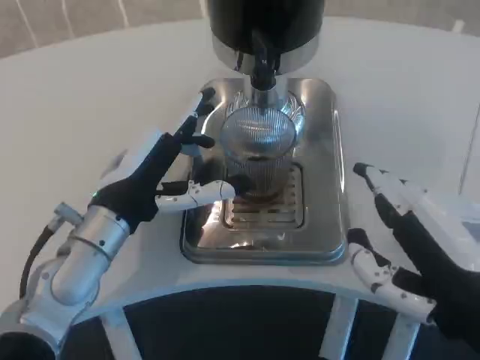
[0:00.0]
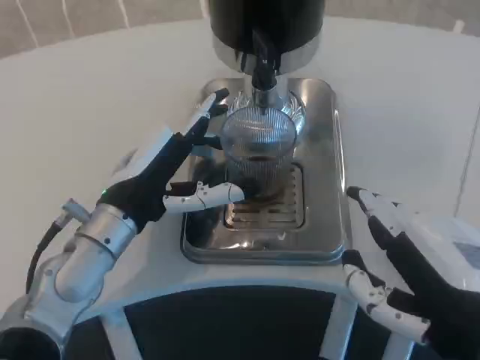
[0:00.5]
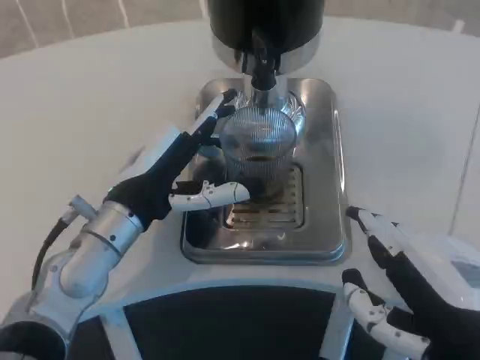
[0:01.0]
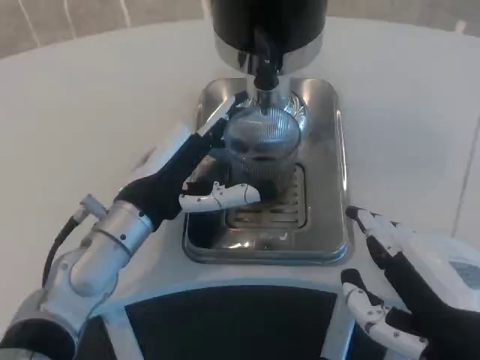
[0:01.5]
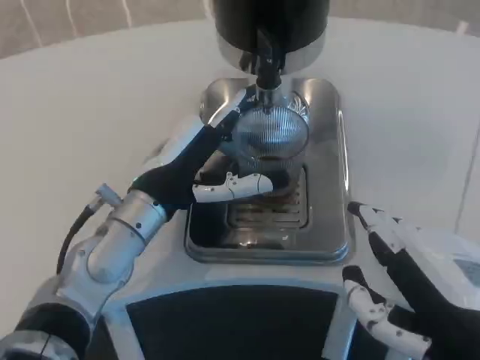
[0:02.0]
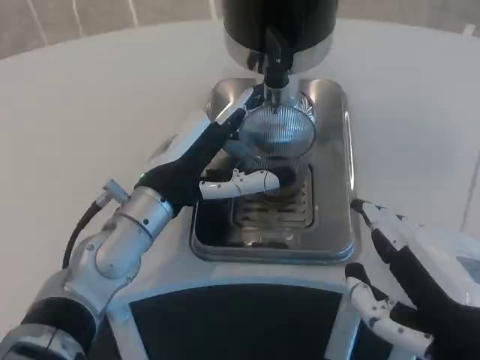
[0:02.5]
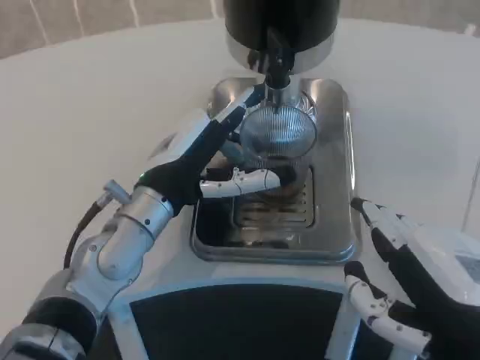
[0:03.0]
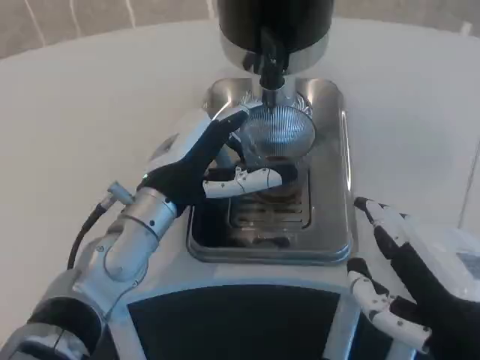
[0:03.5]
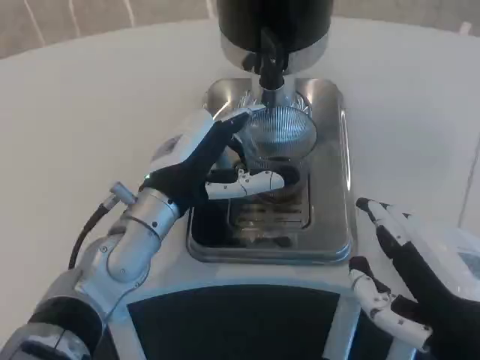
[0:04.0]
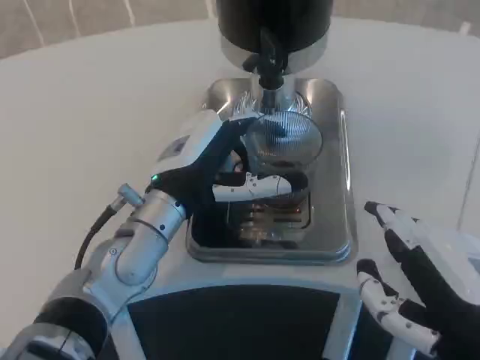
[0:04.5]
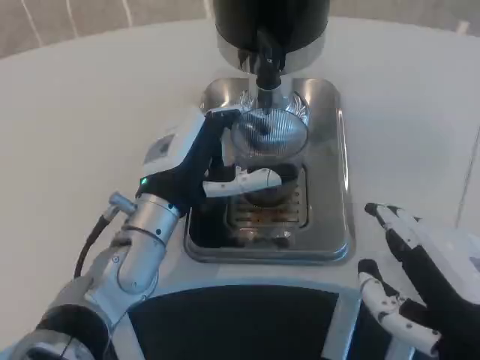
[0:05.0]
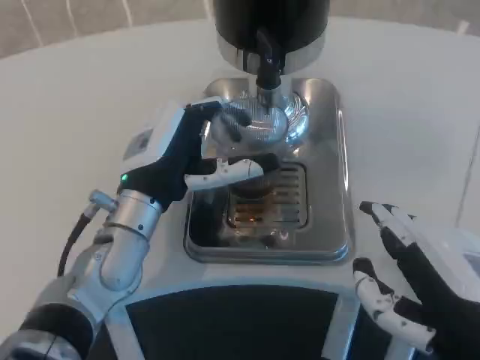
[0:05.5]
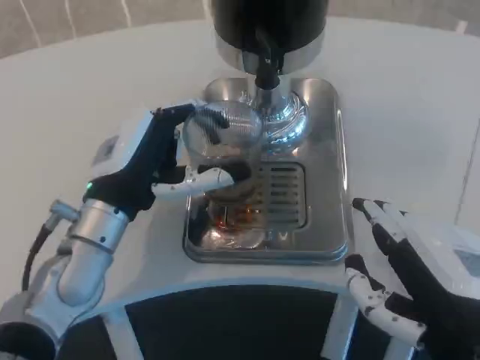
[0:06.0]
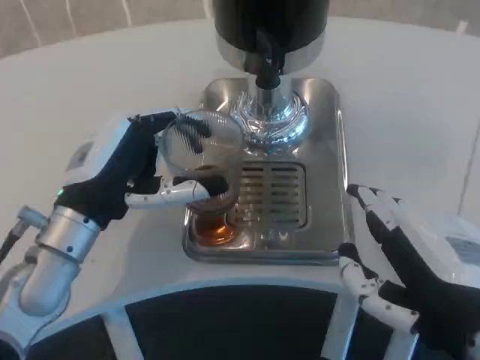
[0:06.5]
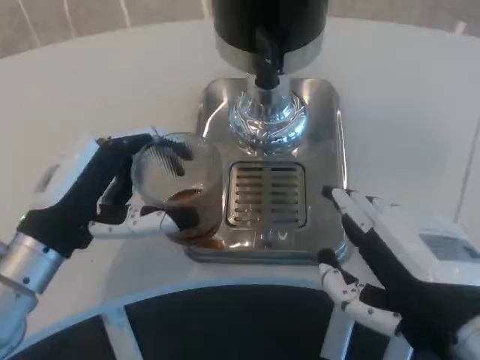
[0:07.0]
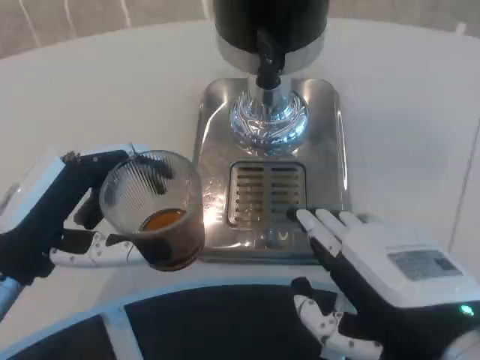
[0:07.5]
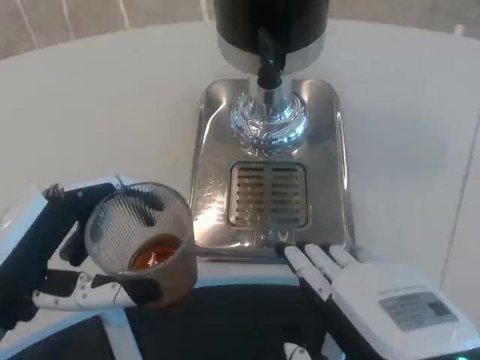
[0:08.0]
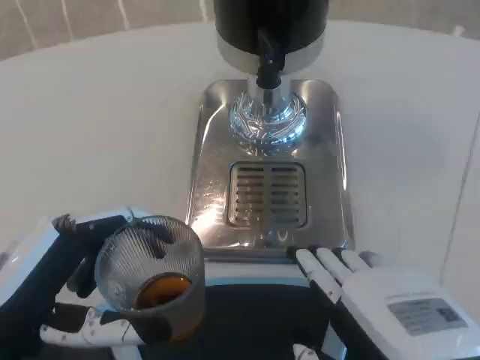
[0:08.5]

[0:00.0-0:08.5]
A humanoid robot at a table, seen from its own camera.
Task of the whole recording: Grasp the cup under the faucet to collect the drink, then remove the cup.
0:02.0 to 0:04.0: The hands make only small movements.
0:04.0 to 0:06.5: The left hand is displaced to the left by some 5 cm.
0:06.5 to 0:08.5: The left hand moves backward, about 10 cm.

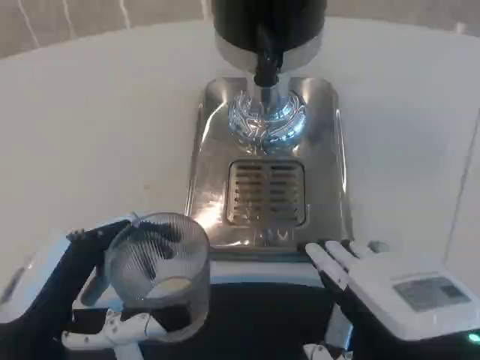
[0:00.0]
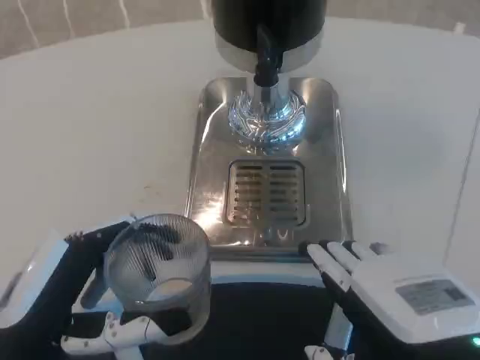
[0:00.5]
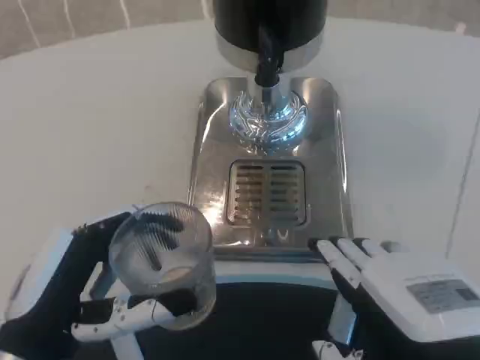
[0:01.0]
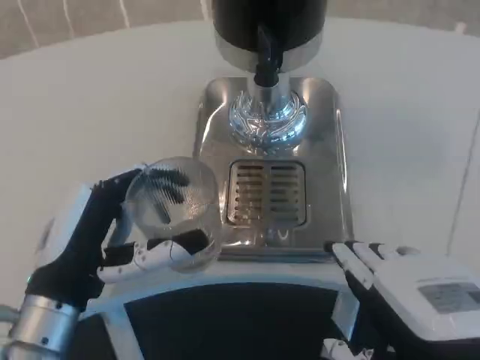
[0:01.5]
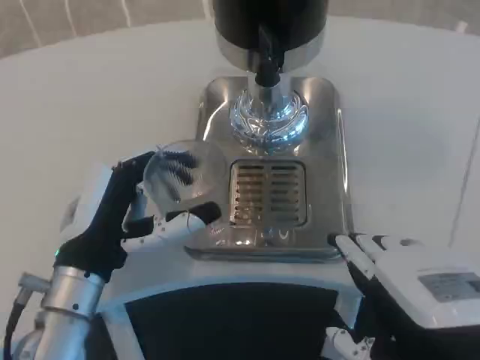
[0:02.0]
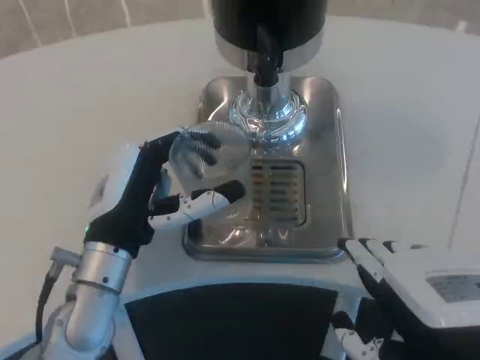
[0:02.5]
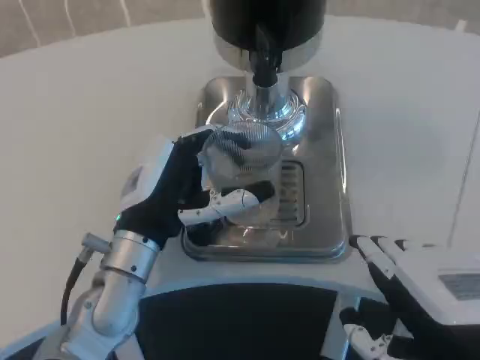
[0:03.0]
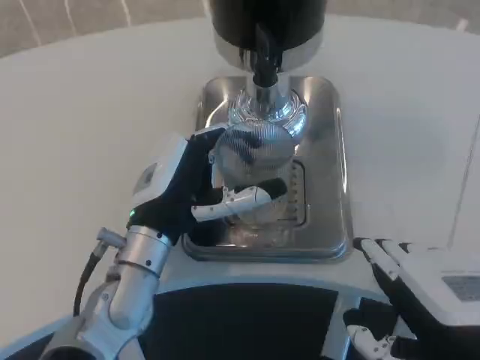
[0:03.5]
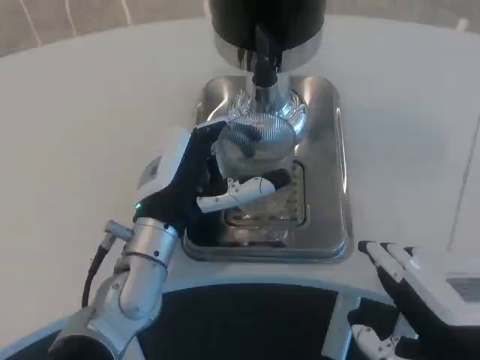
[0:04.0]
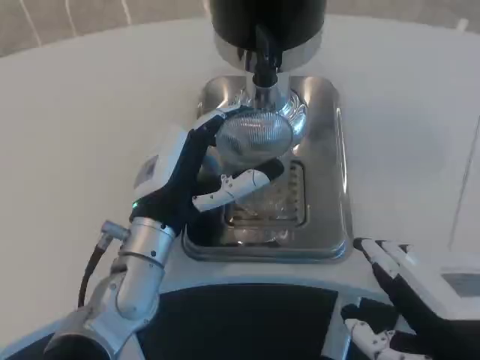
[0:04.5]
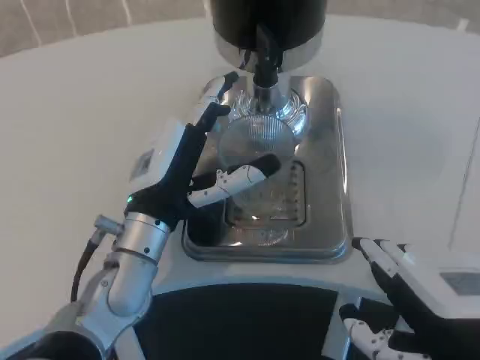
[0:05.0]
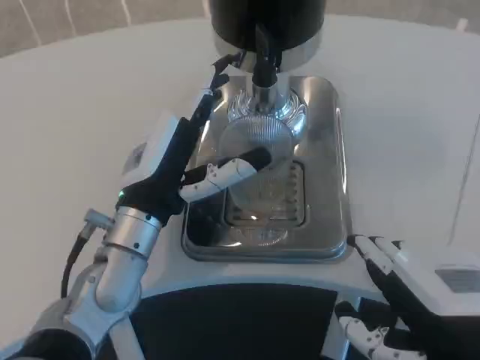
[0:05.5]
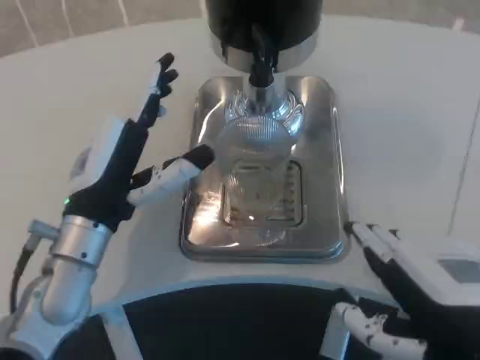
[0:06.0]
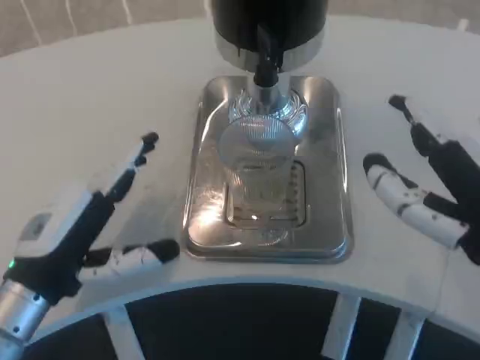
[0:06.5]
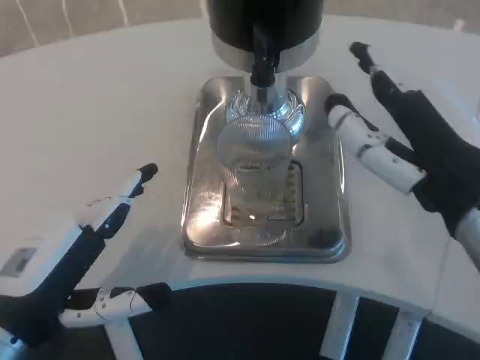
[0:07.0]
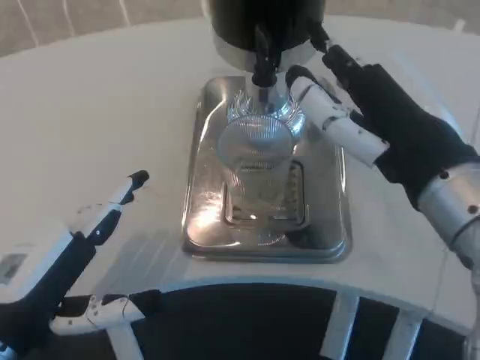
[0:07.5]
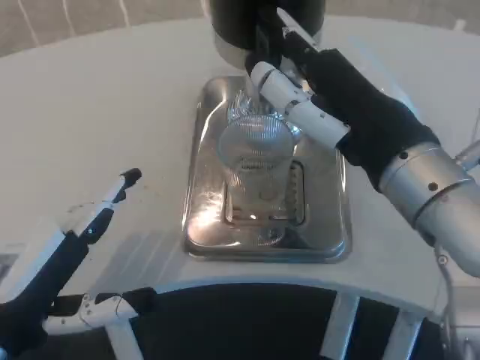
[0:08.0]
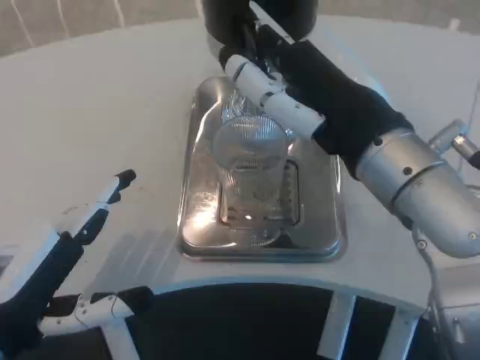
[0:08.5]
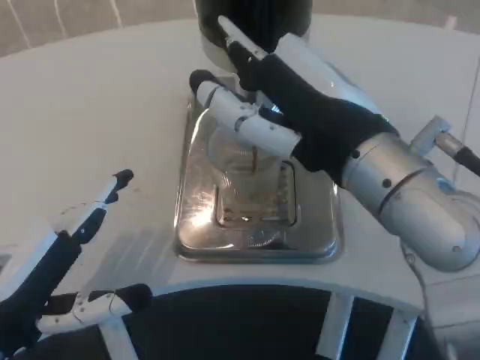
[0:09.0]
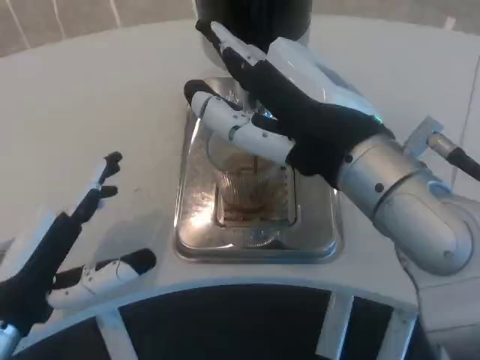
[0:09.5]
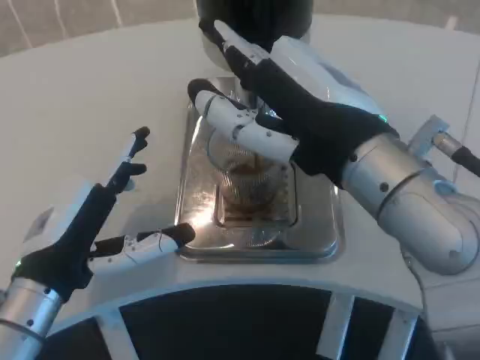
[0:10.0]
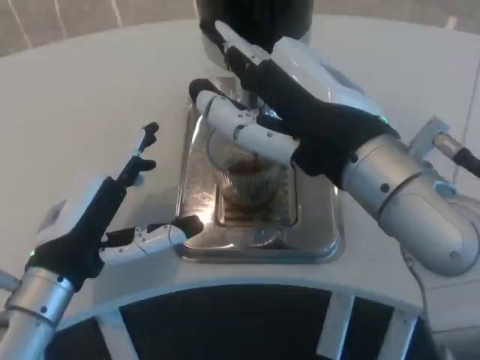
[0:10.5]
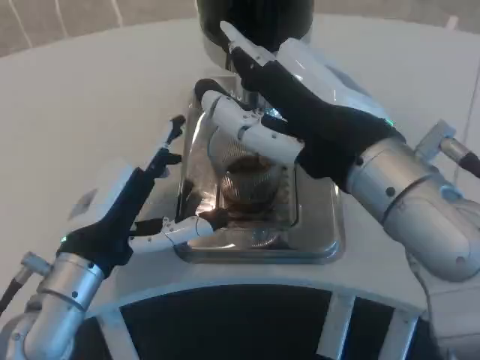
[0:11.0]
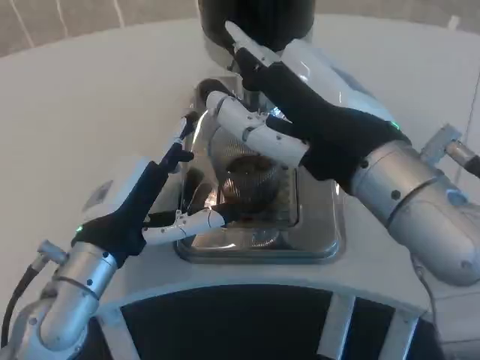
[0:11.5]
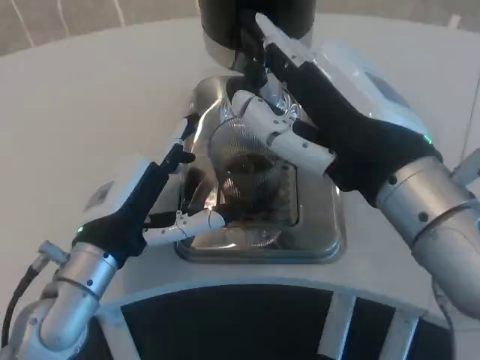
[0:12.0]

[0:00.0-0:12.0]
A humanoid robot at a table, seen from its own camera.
Task of the whole recording: Grasp the cup under the faucet to collect the drink, then remove the cup.
0:00.0 to 0:02.0: The left hand heads forward, covering some 10 cm.
0:02.0 to 0:04.0: The left hand shifts about 10 cm to the right and forward.
0:04.0 to 0:06.0: The left hand is displaced to the left by about 5 cm.
0:06.0 to 0:08.0: The right hand shifts about 10 cm forward and upward; the left hand heads backward and to the left, covering approximately 15 cm.
0:08.0 to 0:10.0: The left hand ends up roughly 5 cm from where it was.
0:10.0 to 0:12.0: The left hand shifts by some 5 cm.

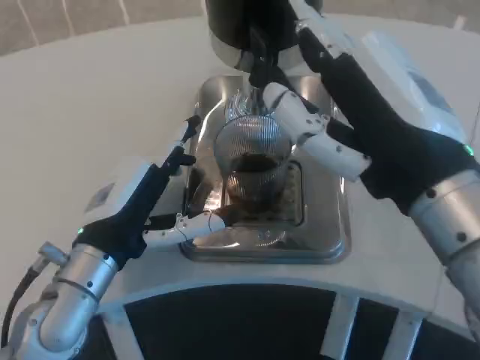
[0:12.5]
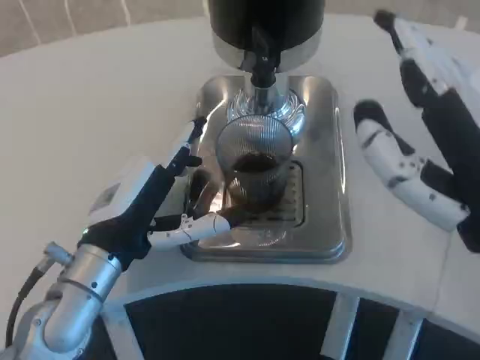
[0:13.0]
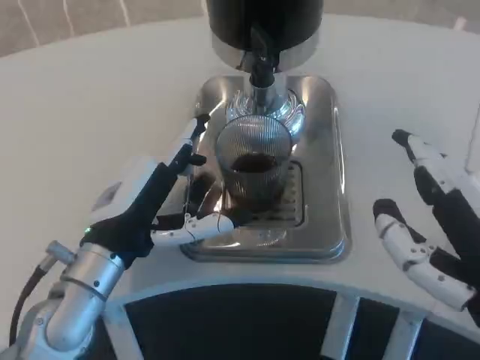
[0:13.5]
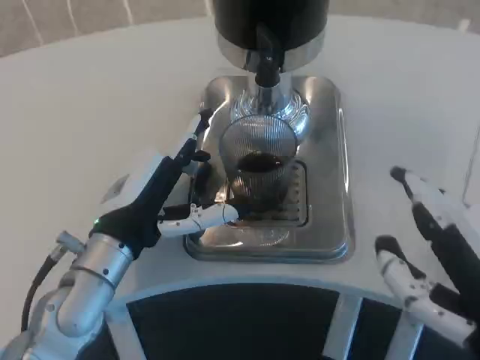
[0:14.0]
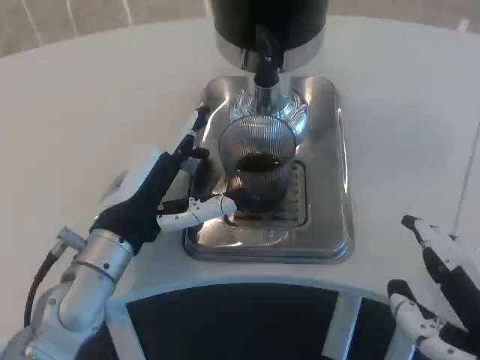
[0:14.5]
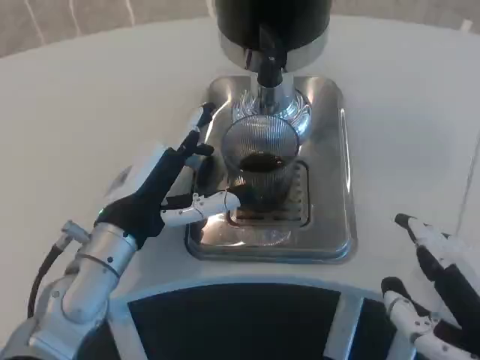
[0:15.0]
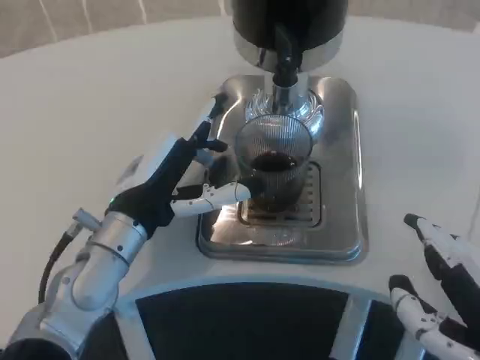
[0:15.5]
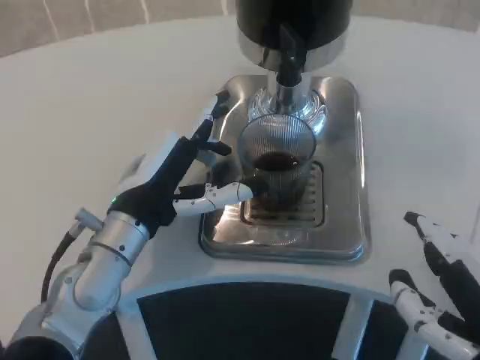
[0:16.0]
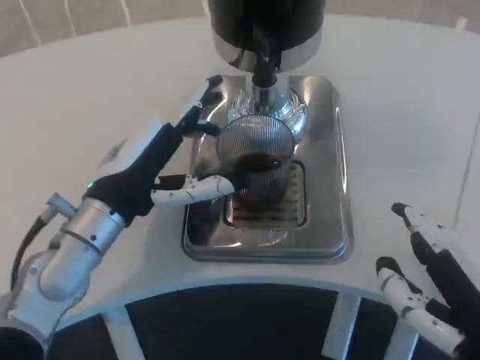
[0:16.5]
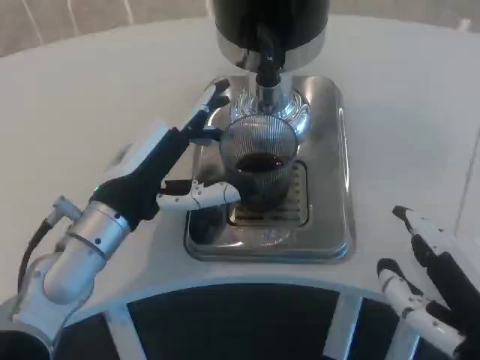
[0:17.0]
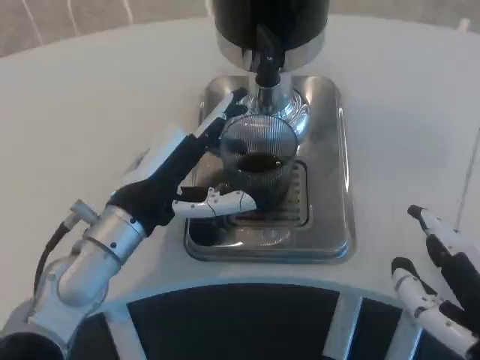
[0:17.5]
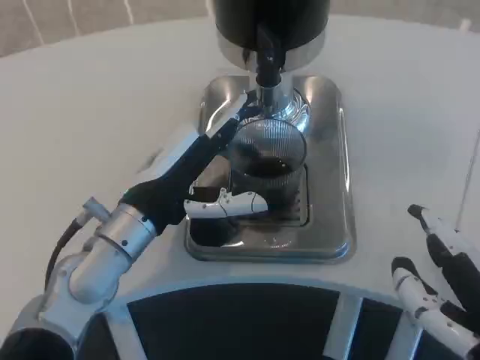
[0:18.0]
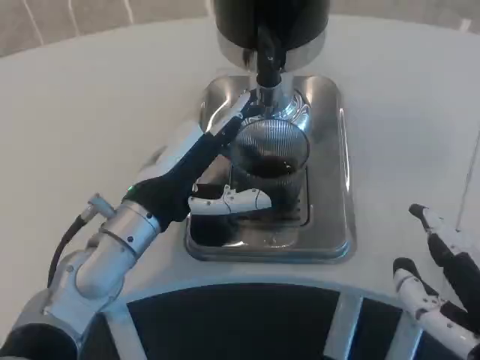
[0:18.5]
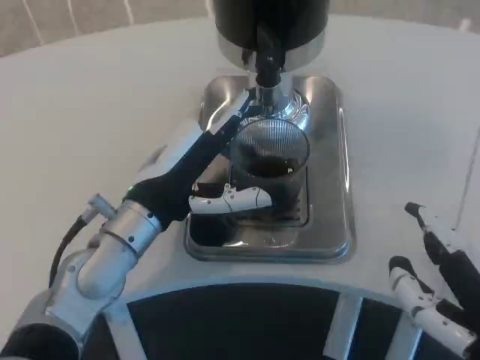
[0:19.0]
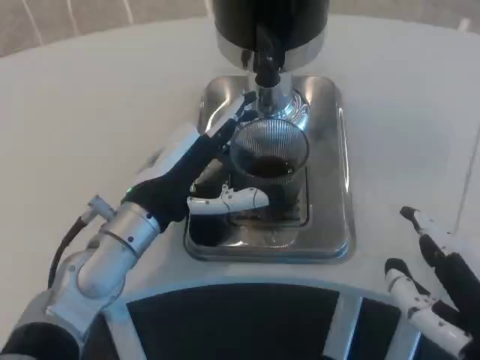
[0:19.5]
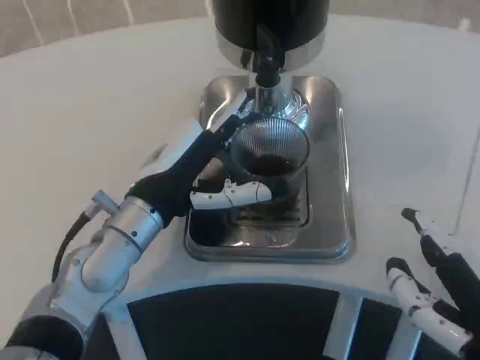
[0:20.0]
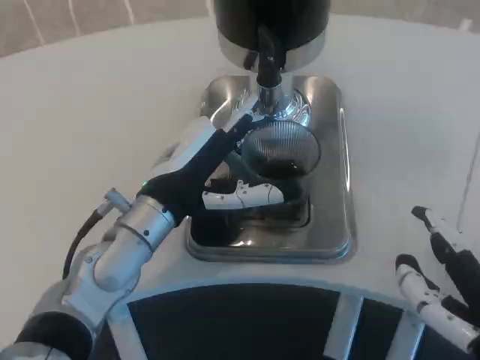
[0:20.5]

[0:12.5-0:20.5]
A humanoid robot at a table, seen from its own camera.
Task of the whole recording: Grasp the cup under the faucet to collect the drink, then remove the cup.
0:12.5 to 0:14.5: The right hand travels backward, downward and to the right by roughly 10 cm.
0:14.5 to 0:16.5: The hands move only a little.
0:18.5 to 0:20.5: The hands stay close to where they were, moving slightly.
